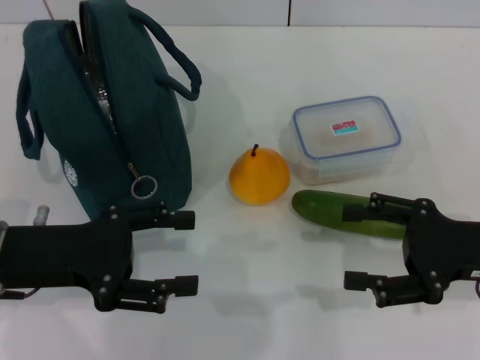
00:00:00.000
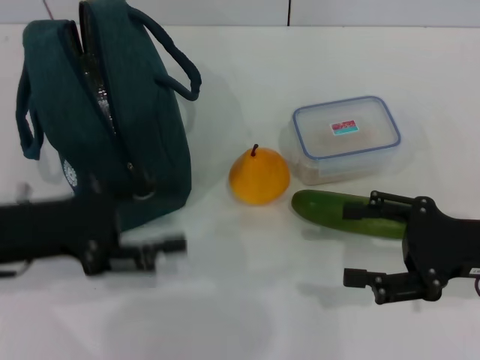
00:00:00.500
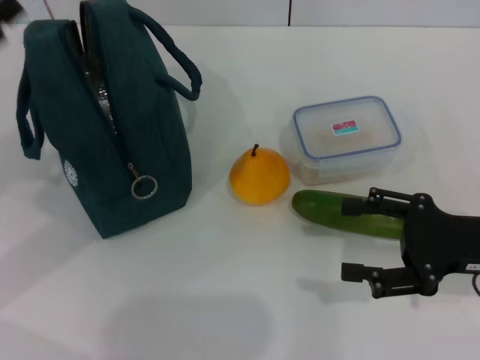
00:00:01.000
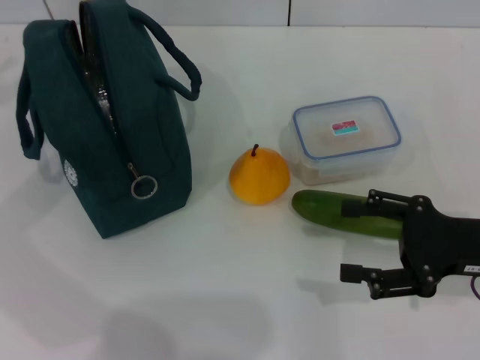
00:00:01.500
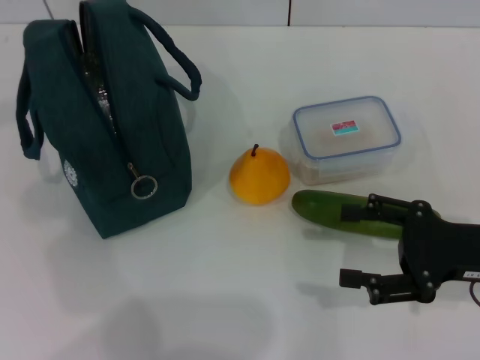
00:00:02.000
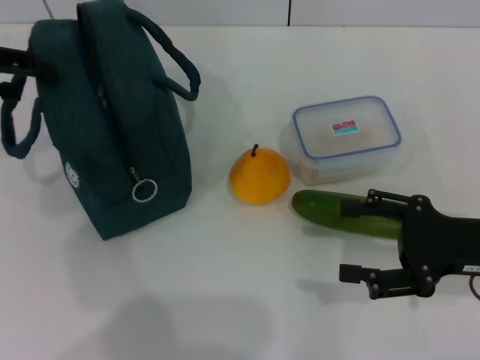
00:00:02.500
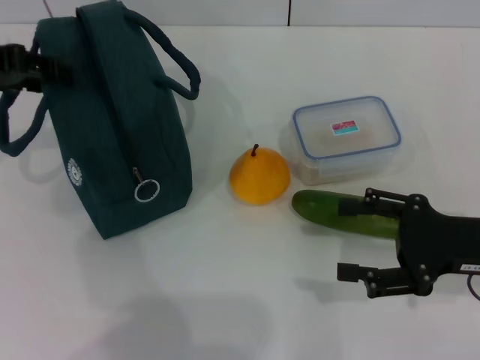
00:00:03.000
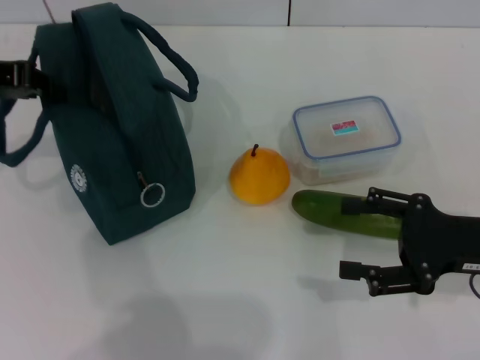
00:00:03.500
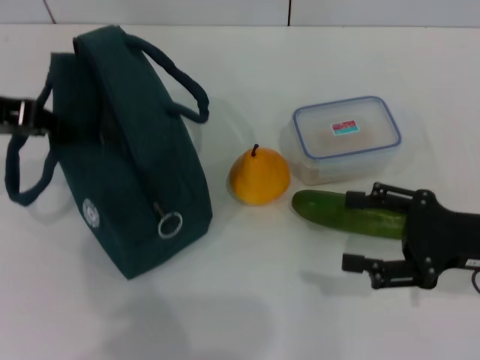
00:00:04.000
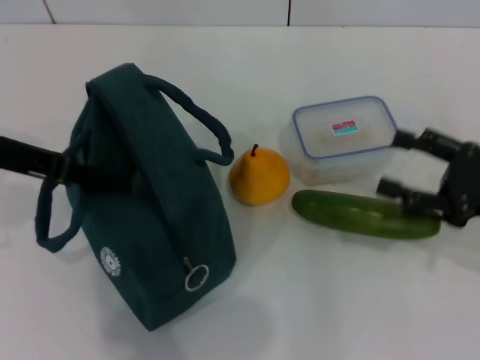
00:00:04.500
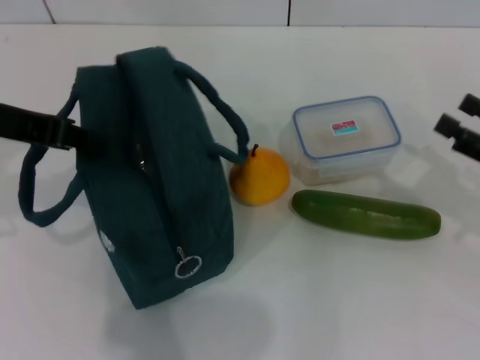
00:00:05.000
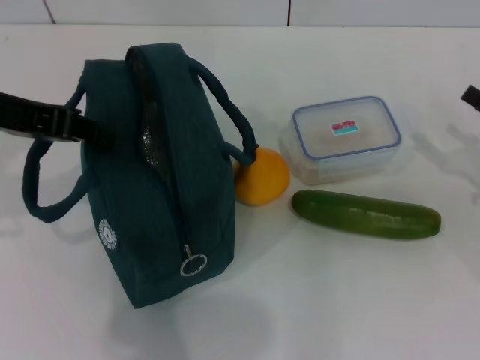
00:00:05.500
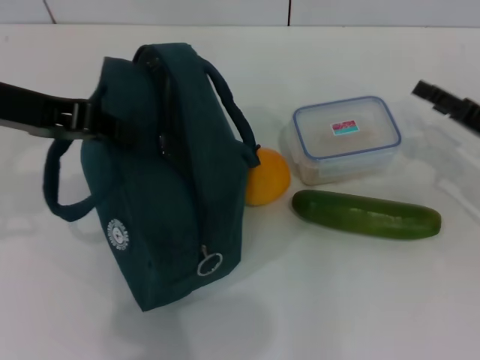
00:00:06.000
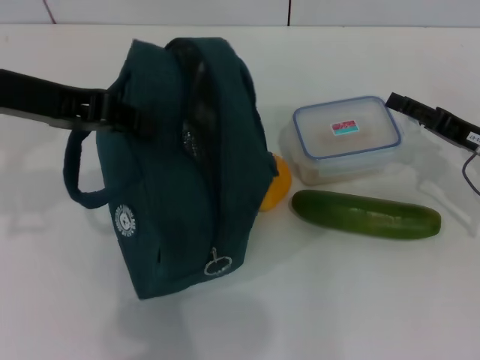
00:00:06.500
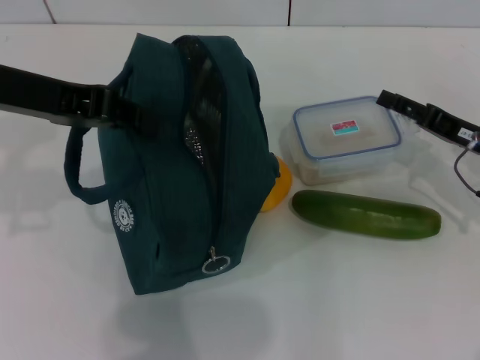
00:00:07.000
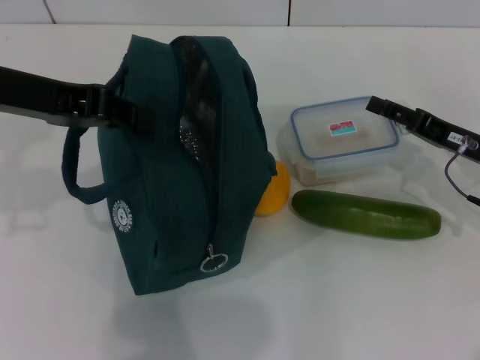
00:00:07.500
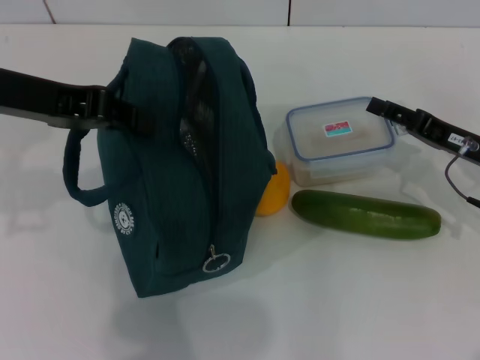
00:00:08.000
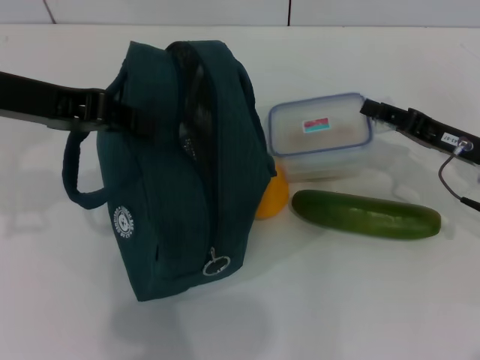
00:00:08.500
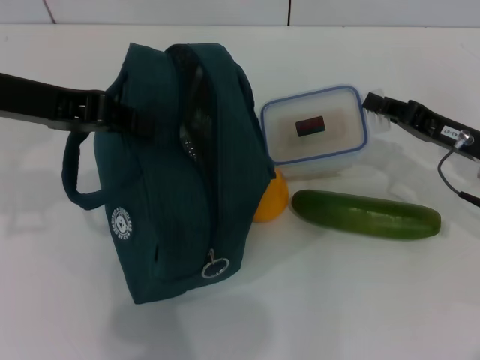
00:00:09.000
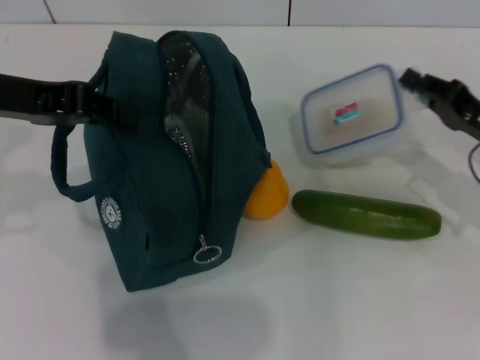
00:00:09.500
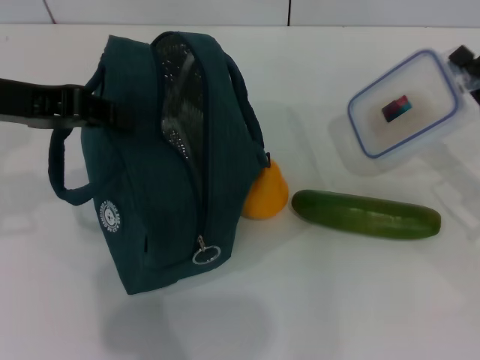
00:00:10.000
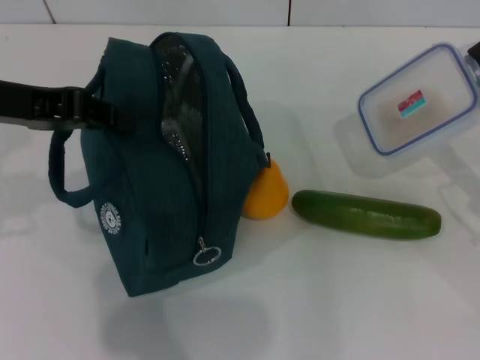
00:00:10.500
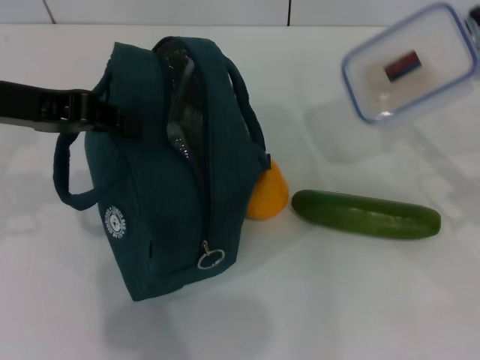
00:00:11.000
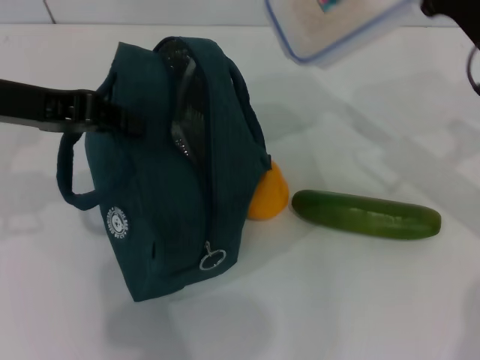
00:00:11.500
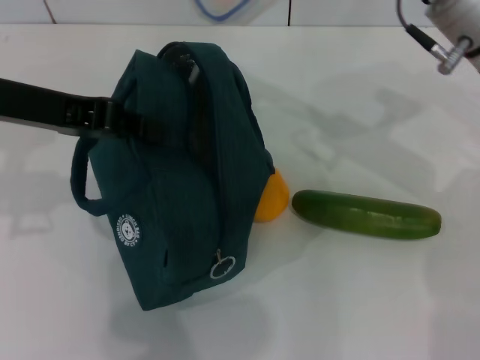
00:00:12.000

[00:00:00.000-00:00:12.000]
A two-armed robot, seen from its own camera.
Step, 00:00:00.000 to 00:00:06.500: Hold the lunch bag with your left hand.
Step, 00:00:07.000 to 00:00:08.500: Pick up the lunch box with your right hand.
00:00:00.000 to 00:00:02.000: The left gripper heads upward, forward and to the left, covering approximately 20 cm.
00:00:02.000 to 00:00:04.000: The left gripper heads to the right and downward, covering some 10 cm, and closes its fingers.
00:00:04.000 to 00:00:06.000: The left gripper travels to the right by approximately 5 cm. The right gripper moves forward, some 10 cm.
00:00:06.000 to 00:00:08.000: The grippers stay close to where they were, moving slightly.
00:00:08.000 to 00:00:10.000: The right gripper changes place by roughly 5 cm, and closes.
00:00:10.000 to 00:00:12.000: The right gripper goes approximately 20 cm to the left, upward and forward.

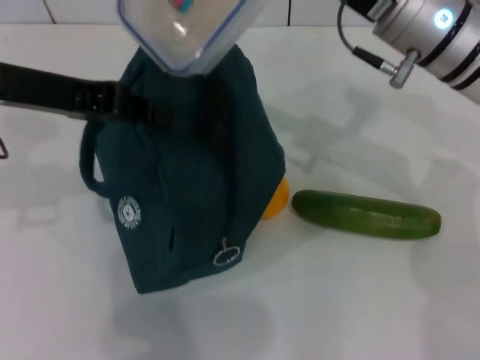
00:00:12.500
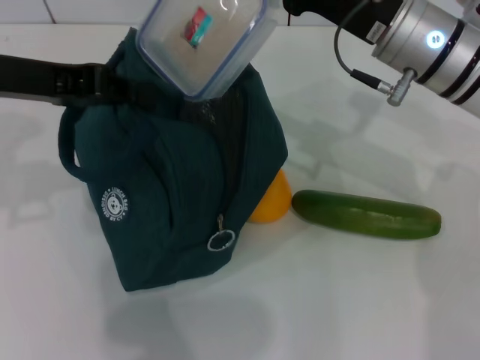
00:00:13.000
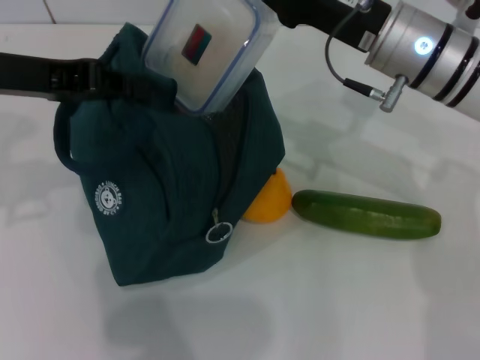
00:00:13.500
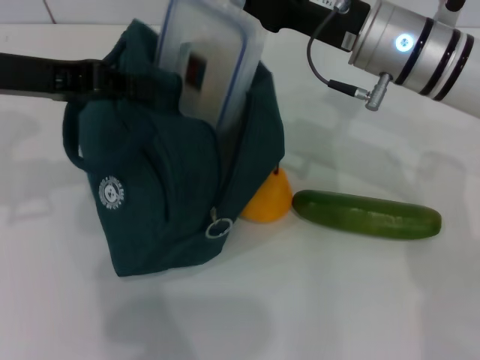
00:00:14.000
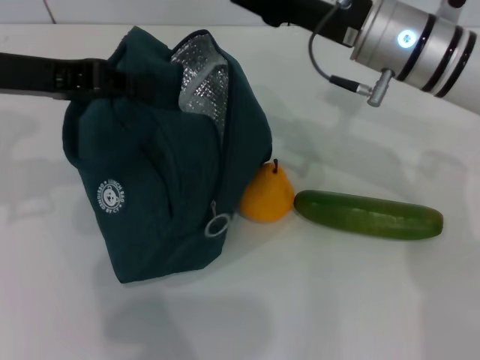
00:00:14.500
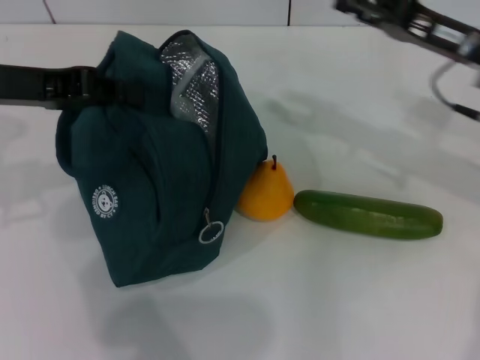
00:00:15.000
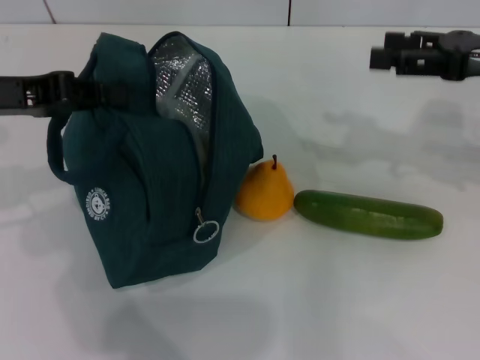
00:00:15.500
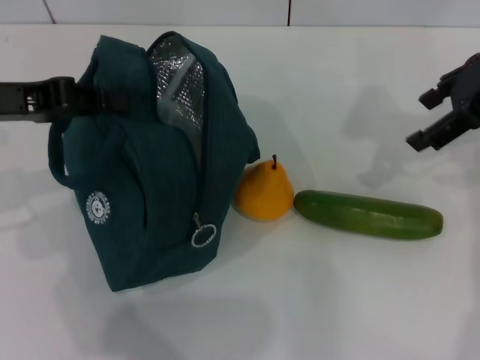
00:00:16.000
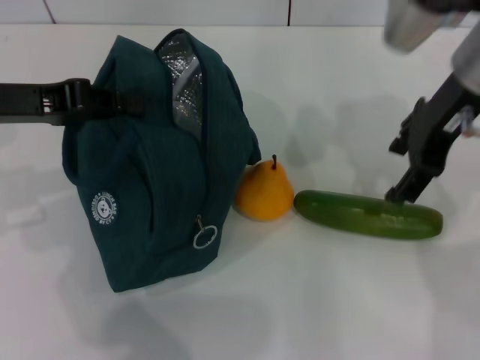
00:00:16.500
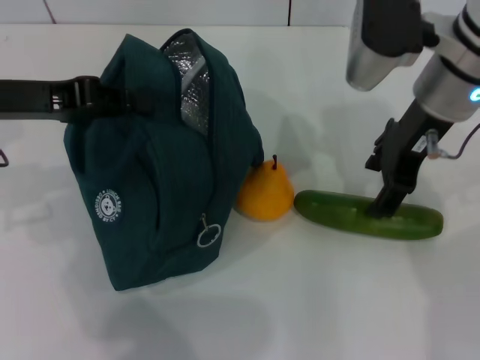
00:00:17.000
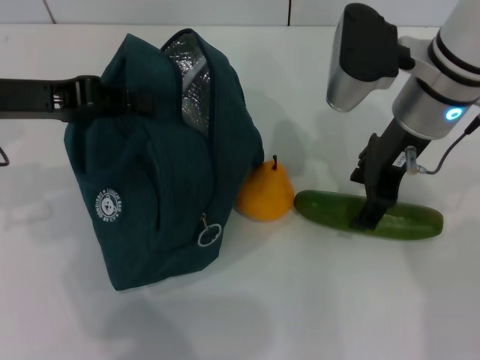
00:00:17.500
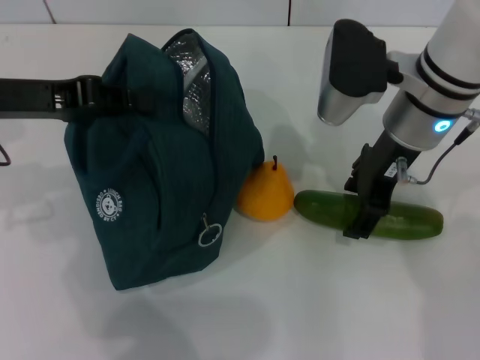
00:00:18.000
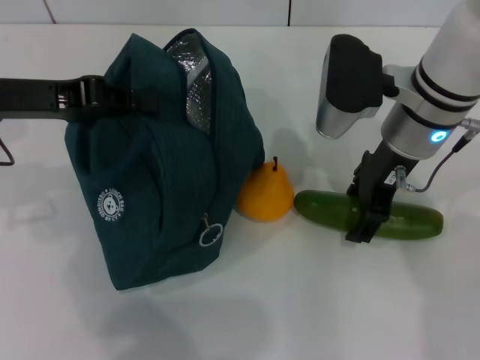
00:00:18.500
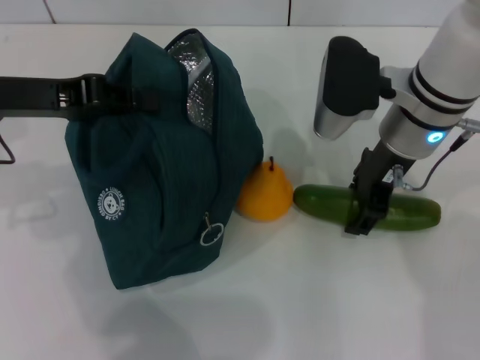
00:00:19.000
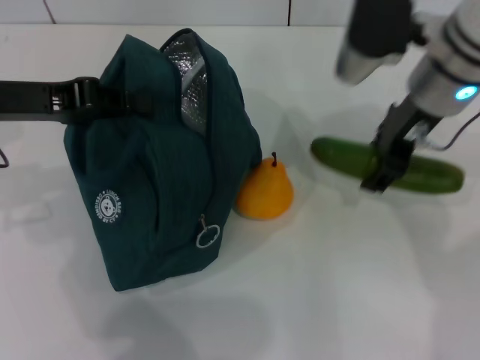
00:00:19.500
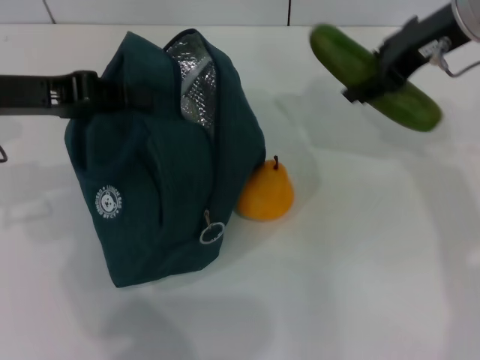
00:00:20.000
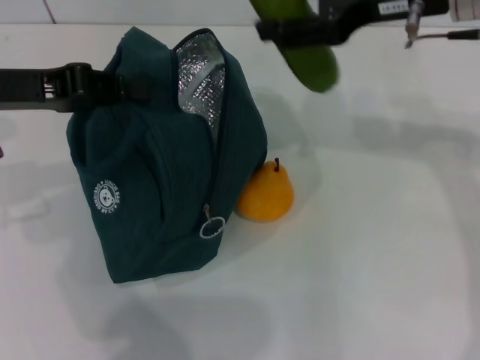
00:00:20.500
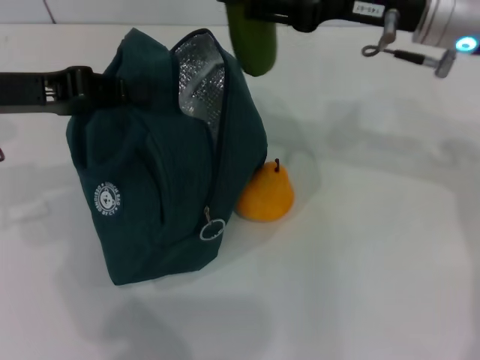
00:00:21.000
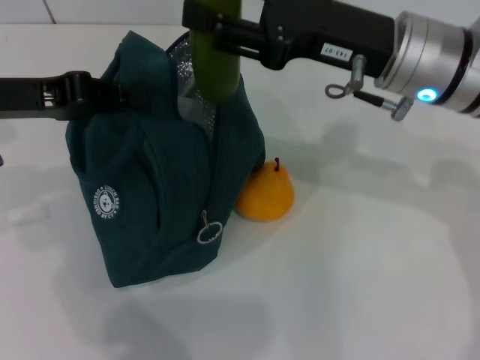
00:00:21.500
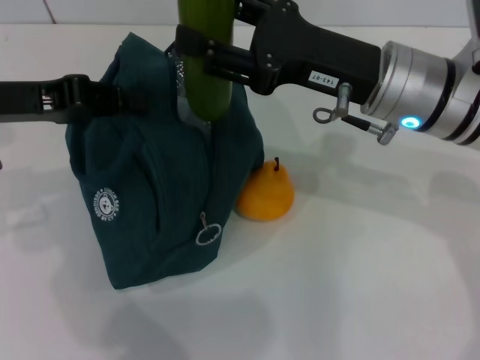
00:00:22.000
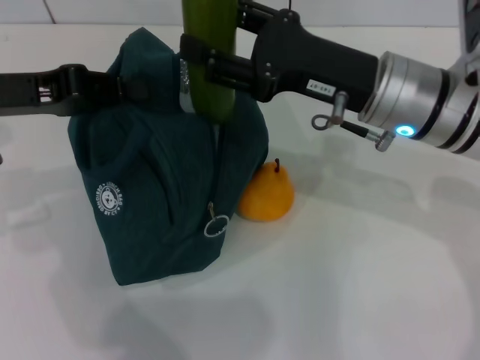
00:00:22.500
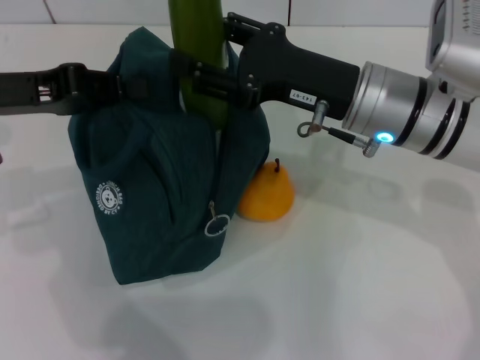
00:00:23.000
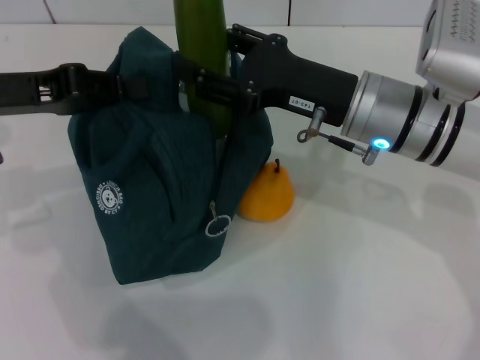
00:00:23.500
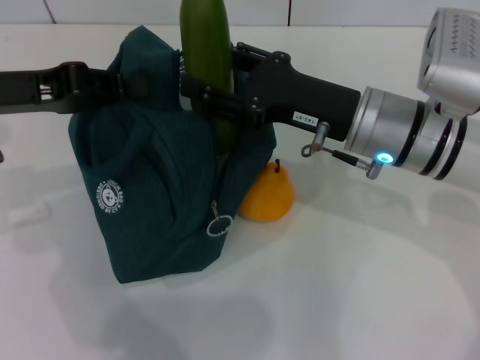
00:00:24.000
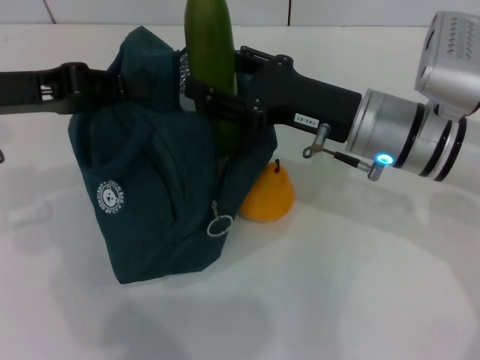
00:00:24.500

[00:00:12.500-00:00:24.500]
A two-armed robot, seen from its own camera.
Step, 00:00:14.500 to 00:00:18.500: Pick up the cucumber with your right hand.
00:00:12.500 to 00:00:14.500: The right gripper opens its fingers.
00:00:14.500 to 00:00:16.500: The right gripper shifts some 5 cm upward, reaches approximately 15 cm to the right, then returns, and opens up.
00:00:16.500 to 00:00:18.500: The right gripper travels downward by approximately 10 cm.
00:00:18.500 to 00:00:20.500: The right gripper moves upward, about 10 cm.
00:00:20.500 to 00:00:22.500: The right gripper moves downward, roughly 10 cm.
00:00:22.500 to 00:00:24.500: The grippers stay close to where they were, moving slightly.

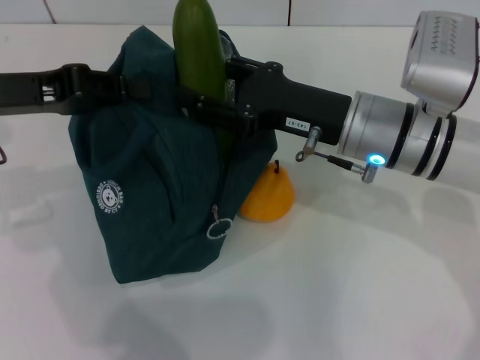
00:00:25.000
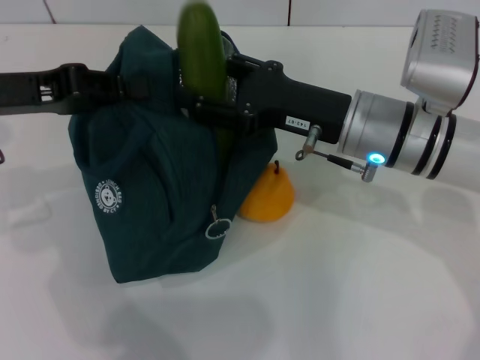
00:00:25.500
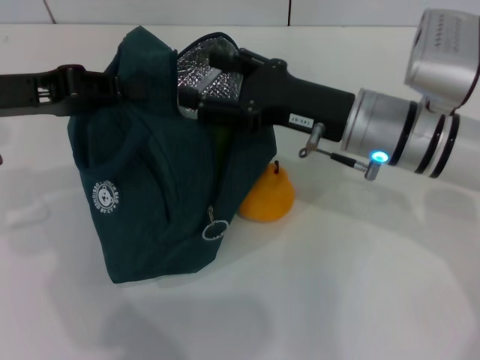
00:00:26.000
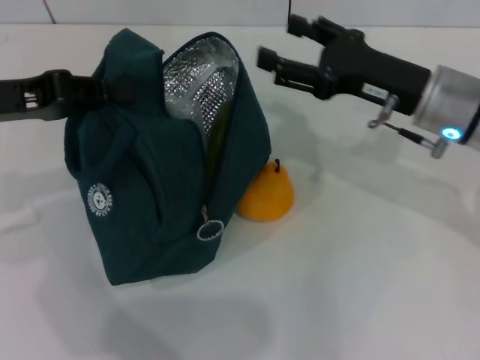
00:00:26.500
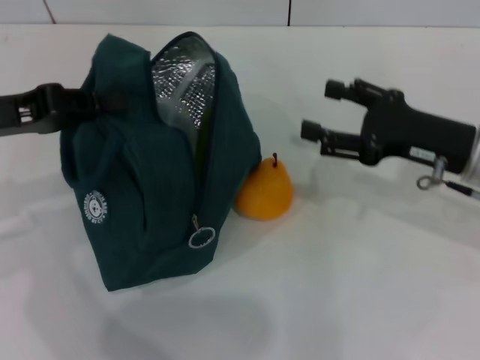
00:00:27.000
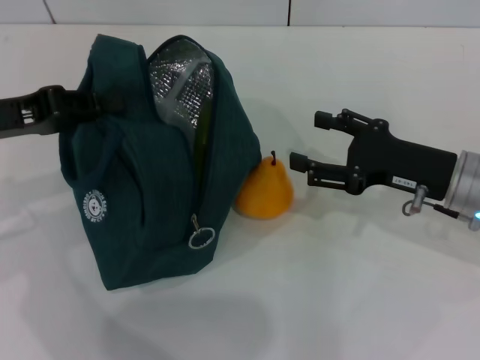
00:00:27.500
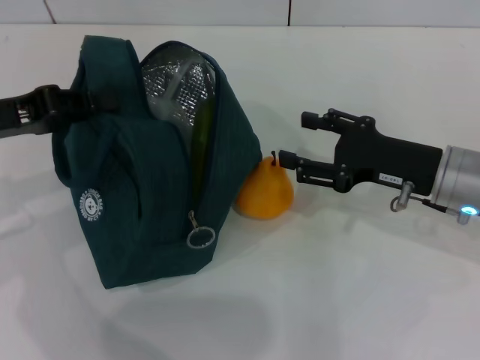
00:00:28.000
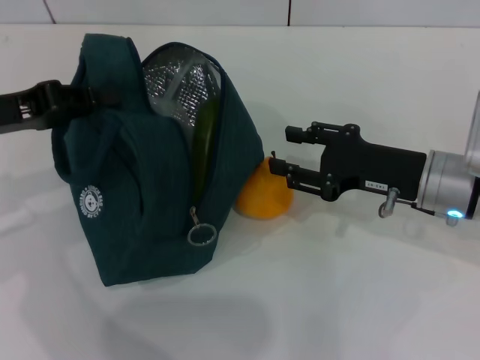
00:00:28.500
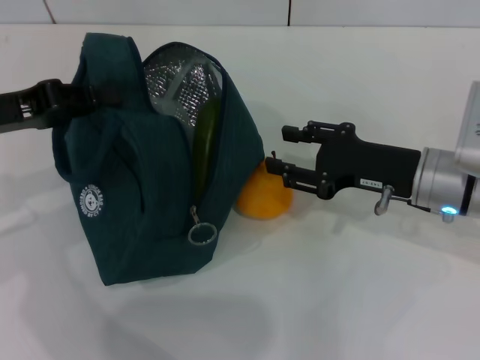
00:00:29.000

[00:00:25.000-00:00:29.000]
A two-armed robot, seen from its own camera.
00:00:25.000 to 00:00:27.000: The right gripper heads to the right, covering about 10 cm.
00:00:27.000 to 00:00:29.000: There are only small adjustments of the grippers.
